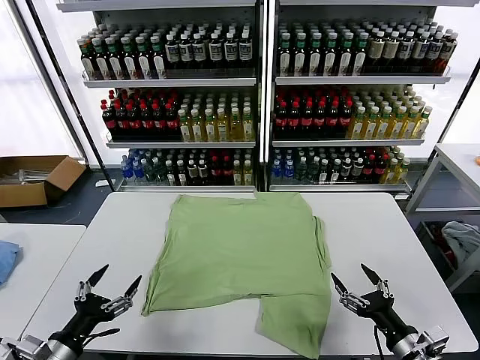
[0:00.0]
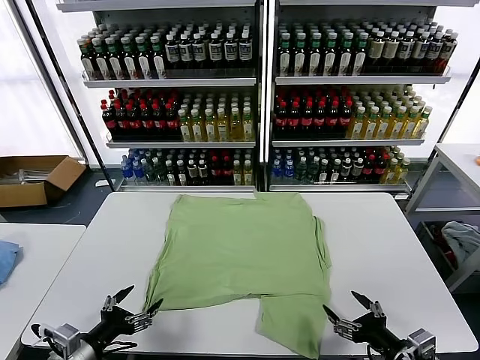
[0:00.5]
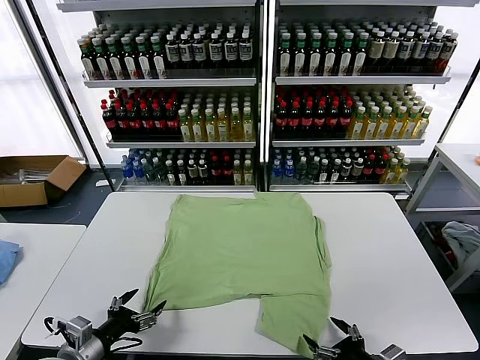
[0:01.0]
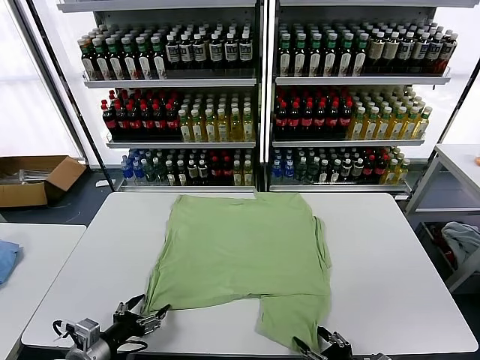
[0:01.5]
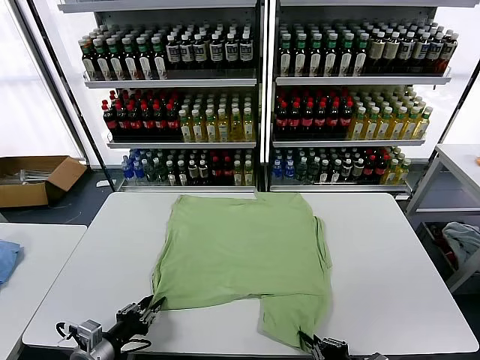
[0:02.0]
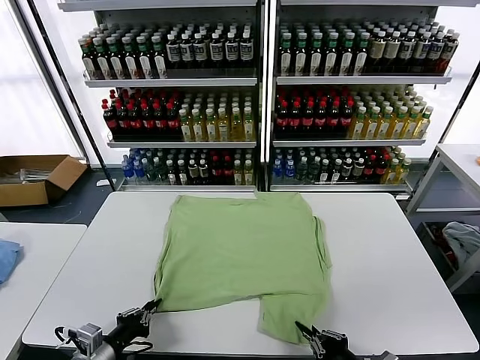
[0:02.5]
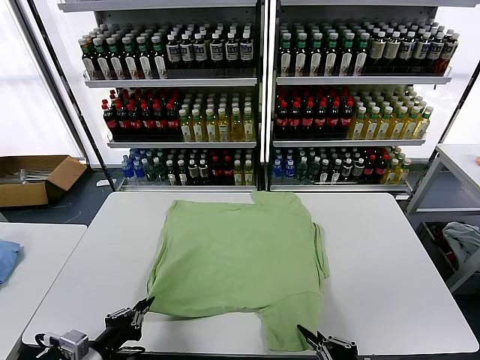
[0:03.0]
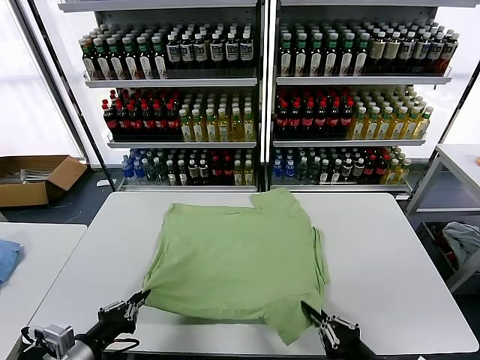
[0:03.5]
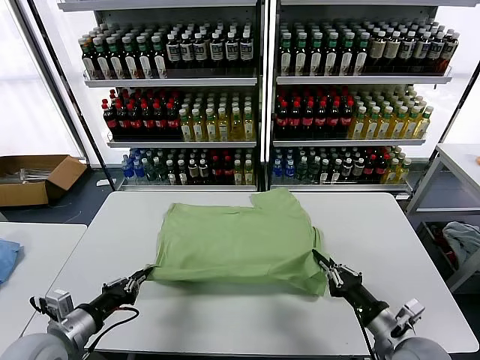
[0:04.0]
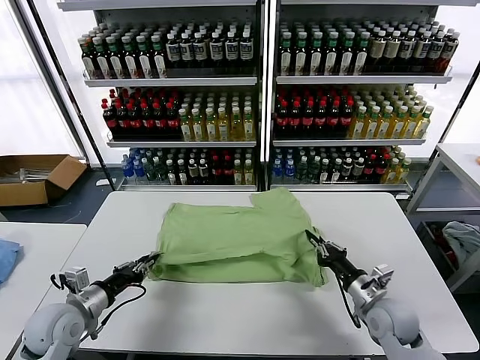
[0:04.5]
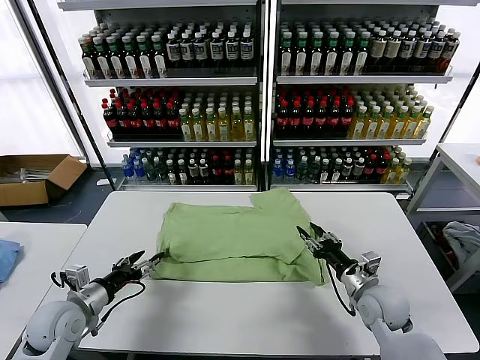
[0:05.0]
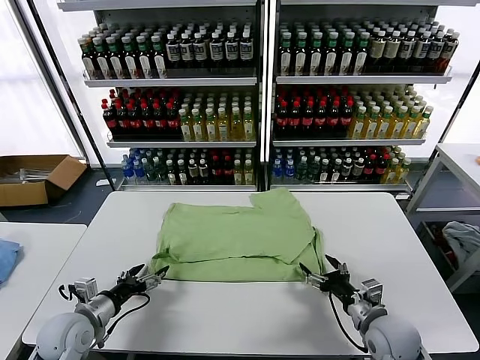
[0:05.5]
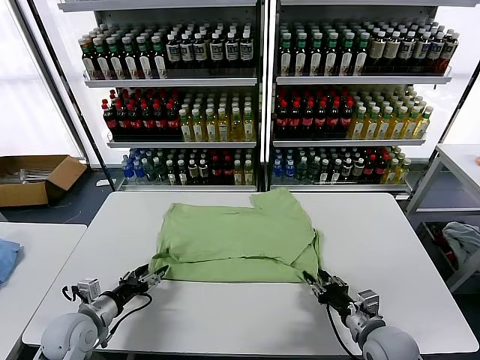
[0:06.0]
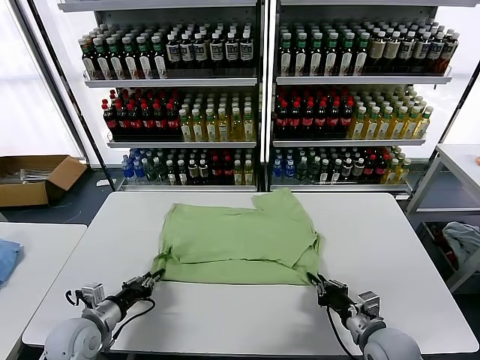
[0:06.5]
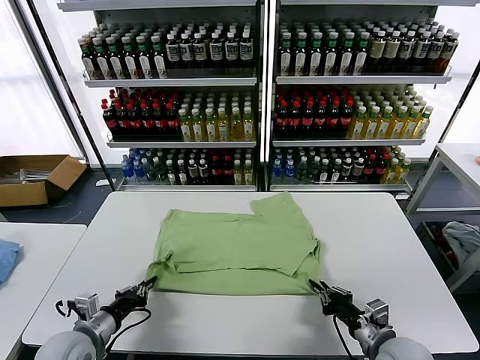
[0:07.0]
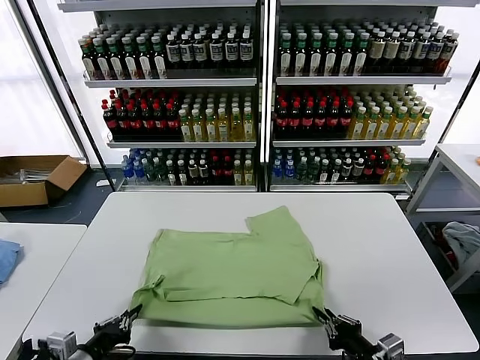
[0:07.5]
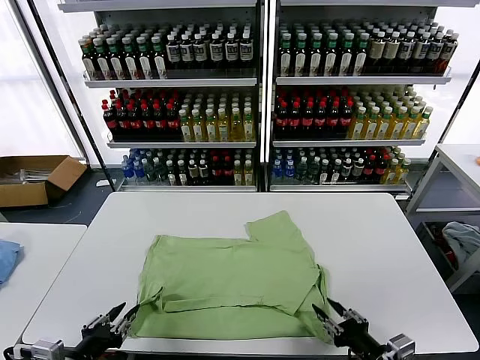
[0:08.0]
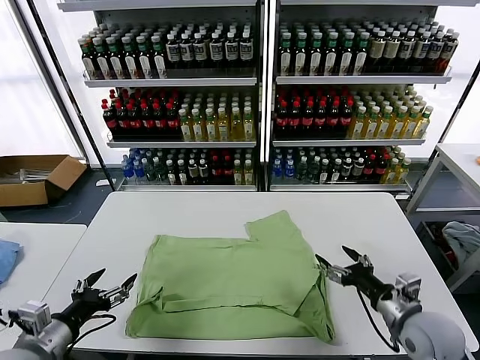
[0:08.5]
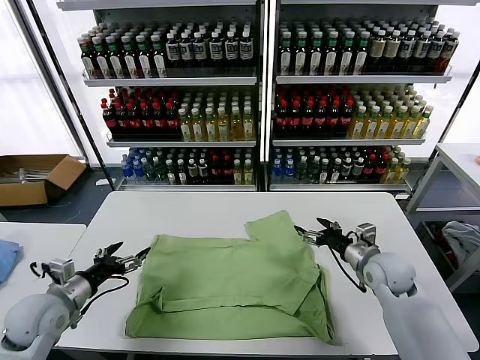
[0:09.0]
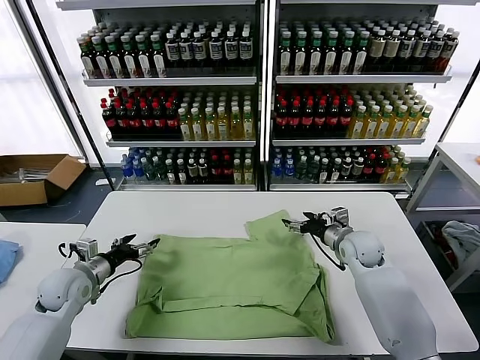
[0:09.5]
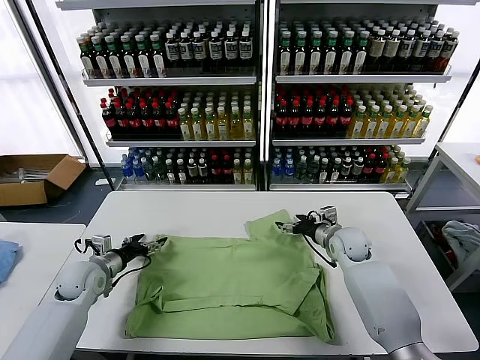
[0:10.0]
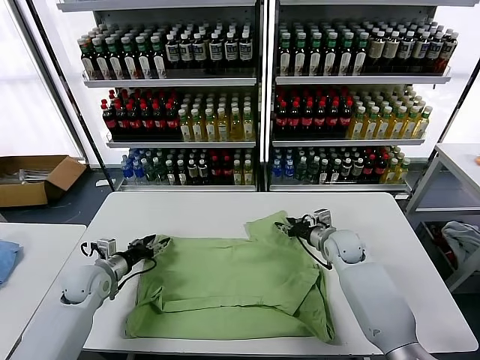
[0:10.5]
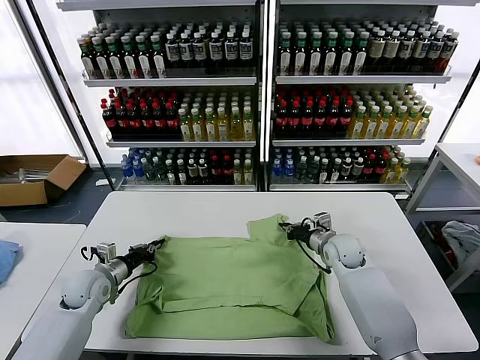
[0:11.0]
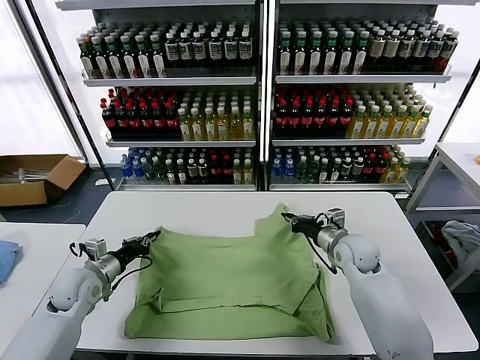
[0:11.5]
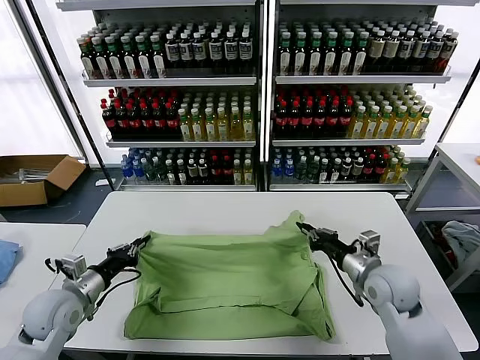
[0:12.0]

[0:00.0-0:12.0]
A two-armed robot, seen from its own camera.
Task of the whole recording: fold and organize the clothes.
Step, 0:00.0 to 0:02.0: use both grippers simultaneously to clamp the lower edge of the clothing fabric.
Step, 0:02.5 to 0:05.0: use both grippers to drag the lower edge of the fabric forward and fold it over the upper edge.
Step, 0:05.5 to 0:08.0: Drag the clothes downward with both gripper.
Step, 0:08.5 to 0:11.0: use both grippers simultaneously to clamp the upper edge of the clothing fabric.
0:02.0 to 0:04.0: The left gripper travels upward by approximately 5 cm, while the right gripper moves forward, about 10 cm.
0:04.0 to 0:06.0: The left gripper shifts about 10 cm downward and forward, and opens its fingers, while the right gripper moves about 10 cm forward and comes back, and opens.
0:06.0 to 0:08.0: The left gripper moves backward and upward, some 20 cm, and closes up. Meanwhile the right gripper goes roughly 10 cm backward and upward.
0:08.0 to 0:10.0: The grippers both shift forward by approximately 30 cm. The left gripper opens up; the right gripper opens up.
0:10.0 to 0:12.0: The left gripper heads backward and upward, covering approximately 10 cm, and closes up. Meanwhile the right gripper moves backward, some 15 cm, and closes its fingers.

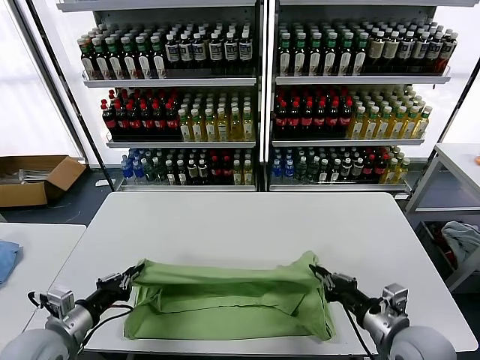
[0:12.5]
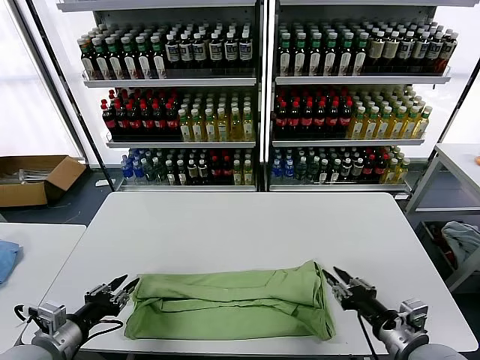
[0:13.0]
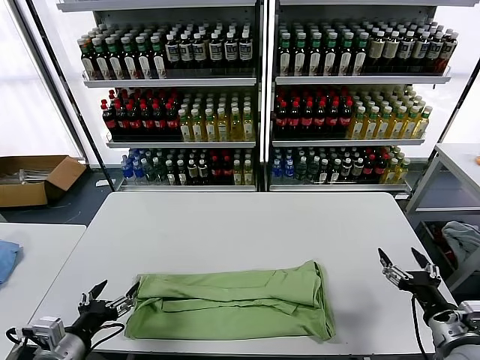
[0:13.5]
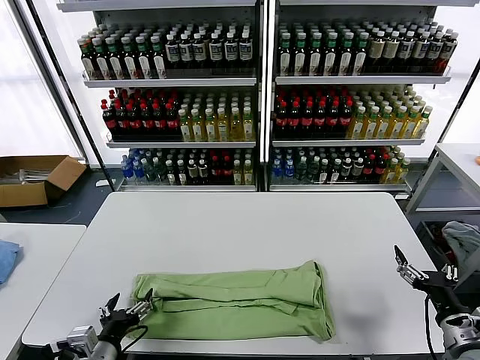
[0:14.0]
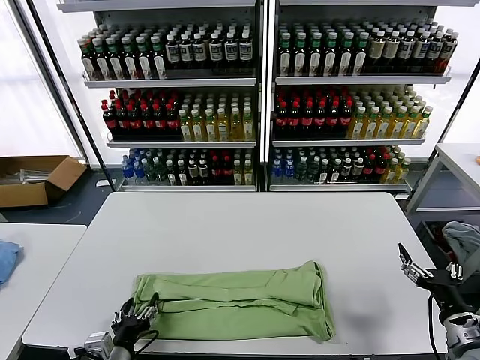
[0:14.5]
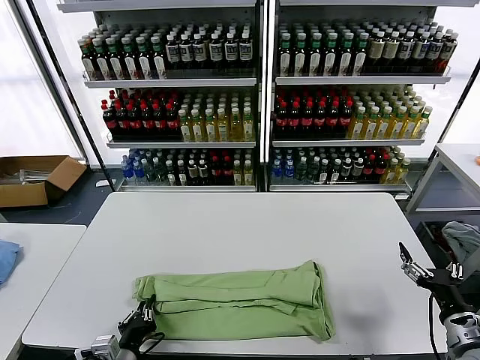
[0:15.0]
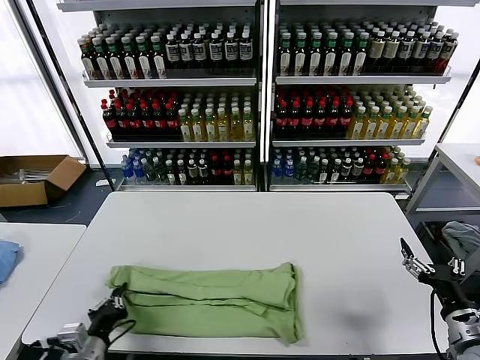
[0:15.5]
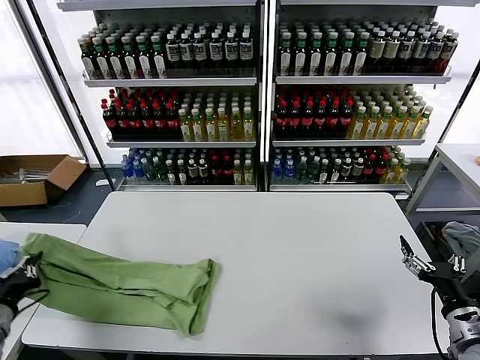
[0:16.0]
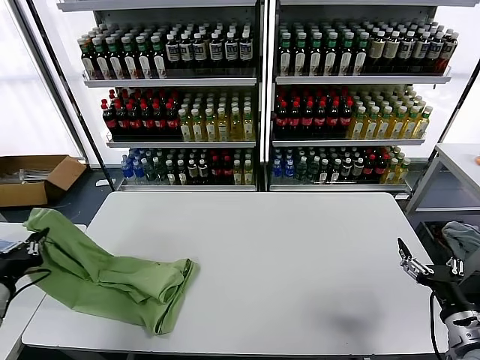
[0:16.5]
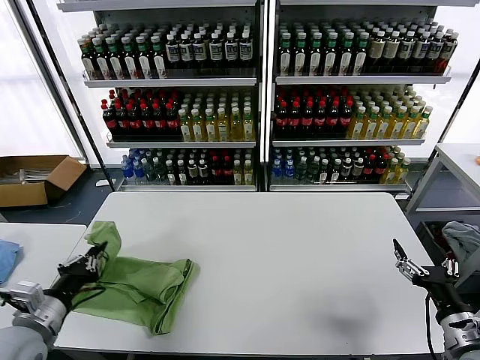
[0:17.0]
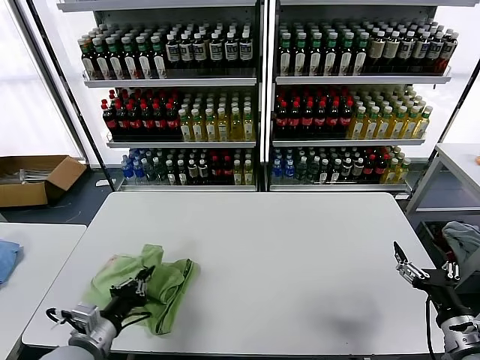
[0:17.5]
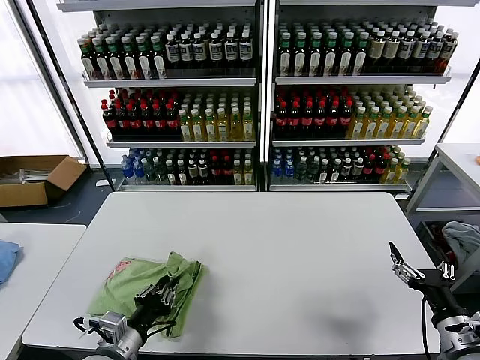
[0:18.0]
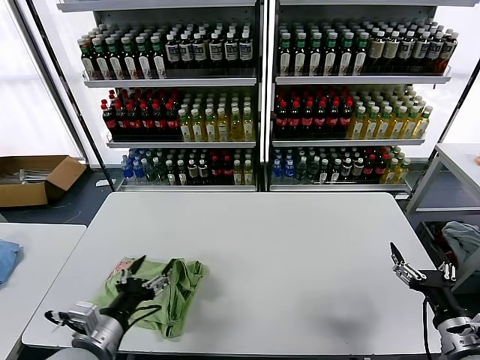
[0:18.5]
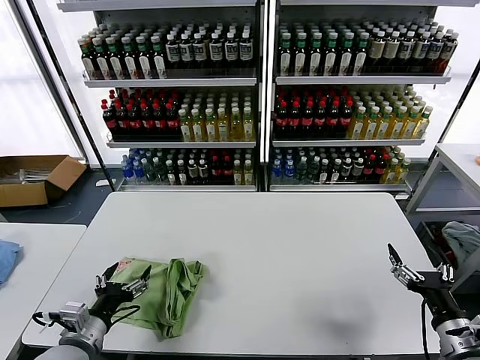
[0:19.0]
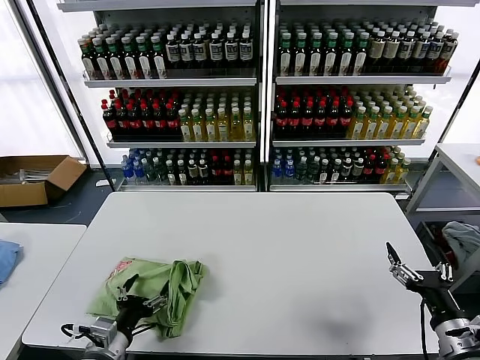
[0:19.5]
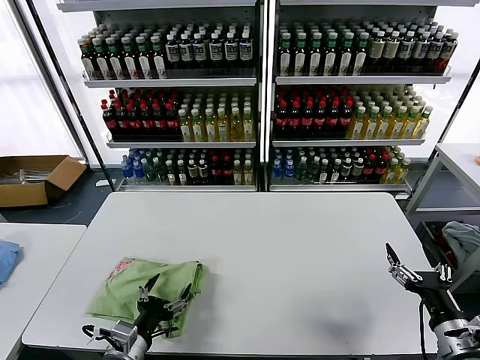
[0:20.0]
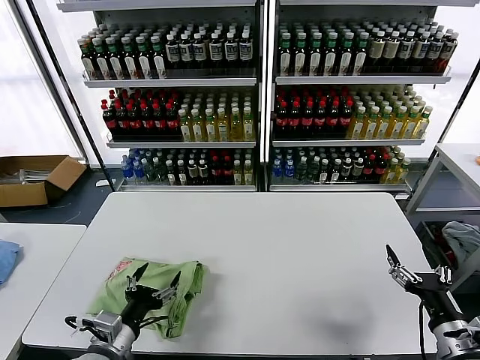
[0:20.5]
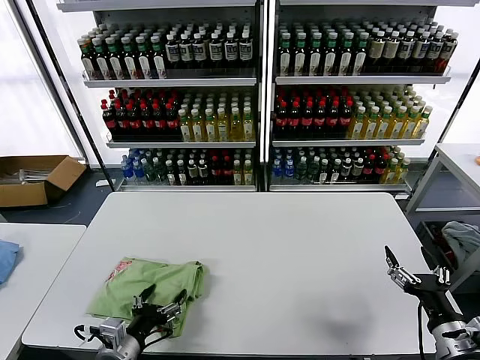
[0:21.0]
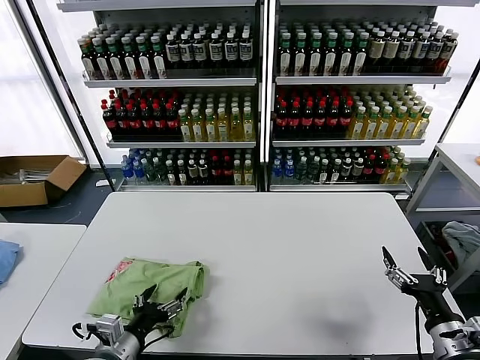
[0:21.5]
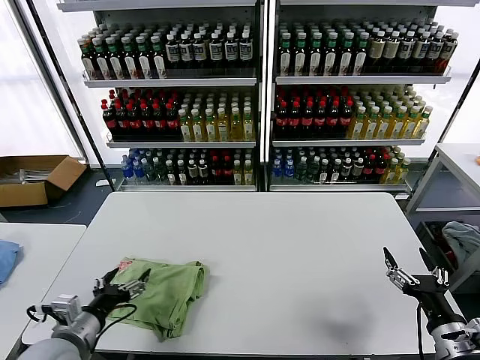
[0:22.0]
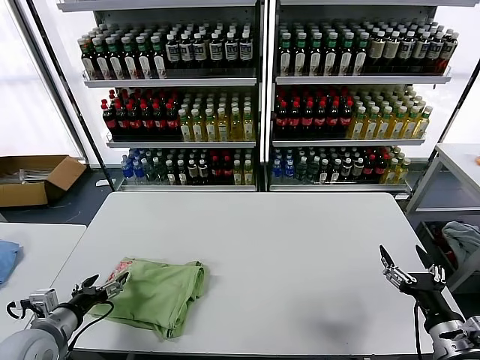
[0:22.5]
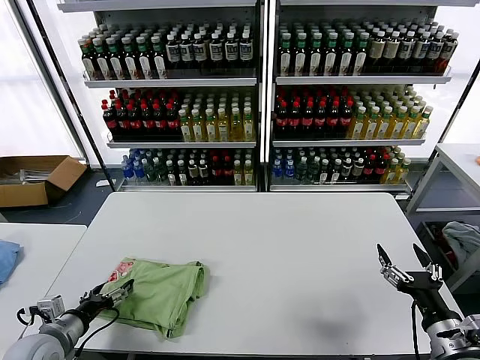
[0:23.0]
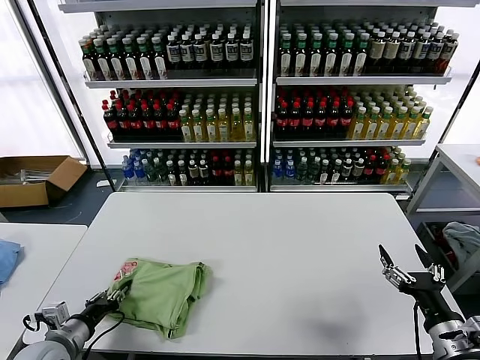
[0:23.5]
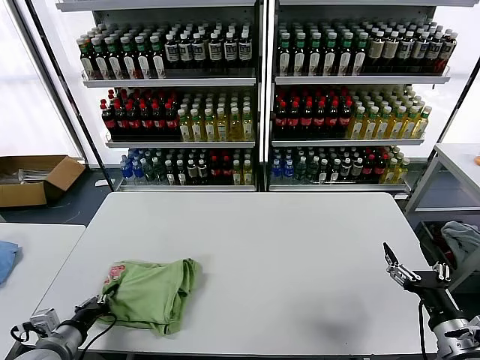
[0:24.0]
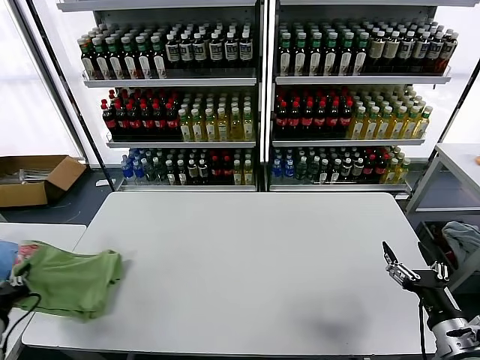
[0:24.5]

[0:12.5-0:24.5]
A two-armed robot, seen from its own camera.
Task of the whole recording: fold and organize the clothes.
Step, 0:13.5 to 0:15.0: use the left gripper to clamp the left edge of the fabric.
Step, 0:15.5 to 0:18.0: use the left gripper to drag the left edge of the fabric to the left and folds it over the right edge.
0:12.5 to 0:14.5: The left gripper moves to the right, downward and backward, some 15 cm, and opens its fingers. The right gripper shifts about 10 cm to the right, and opens.
0:14.5 to 0:16.5: The left gripper moves to the left and upward, some 25 cm, and closes.
0:16.5 to 0:18.5: The left gripper goes roughly 20 cm to the right, and opens.
0:20.5 to 0:22.5: The left gripper goes roughly 15 cm to the left.
0:22.5 to 0:24.5: The left gripper shifts roughly 5 cm to the left, and closes up.

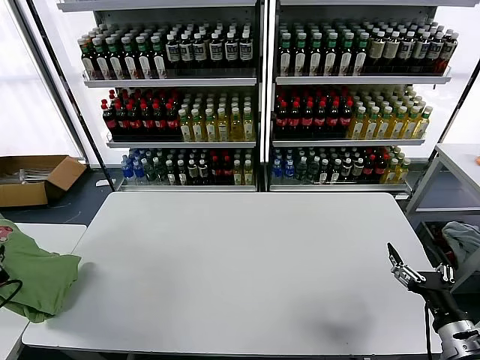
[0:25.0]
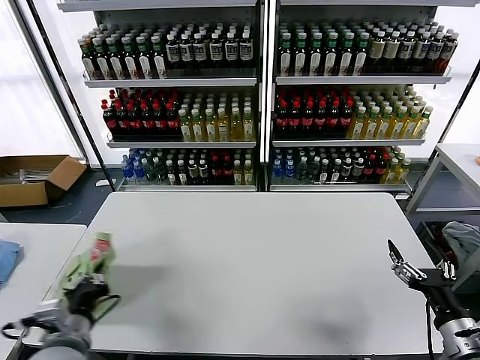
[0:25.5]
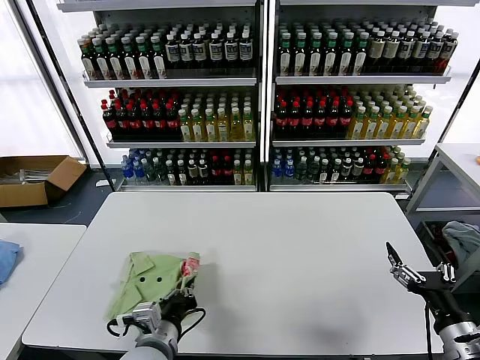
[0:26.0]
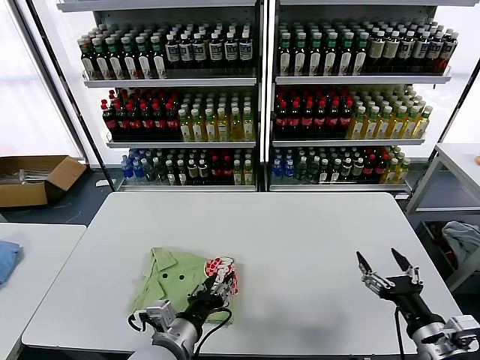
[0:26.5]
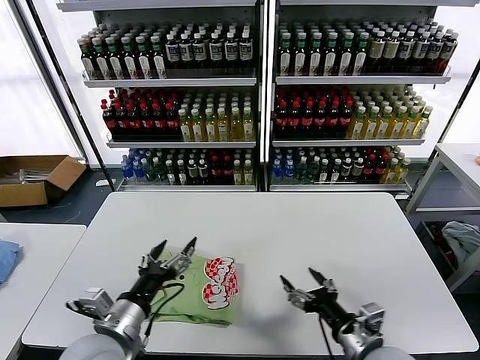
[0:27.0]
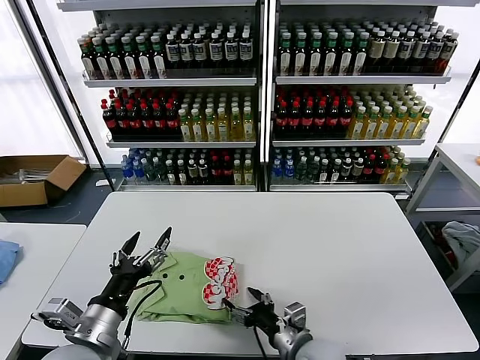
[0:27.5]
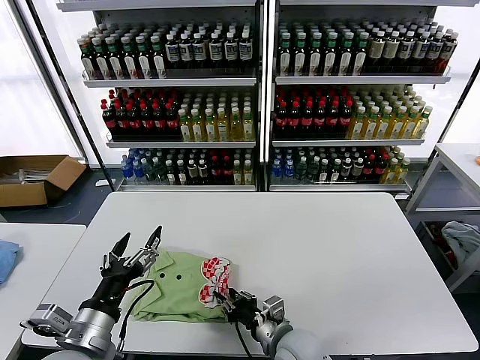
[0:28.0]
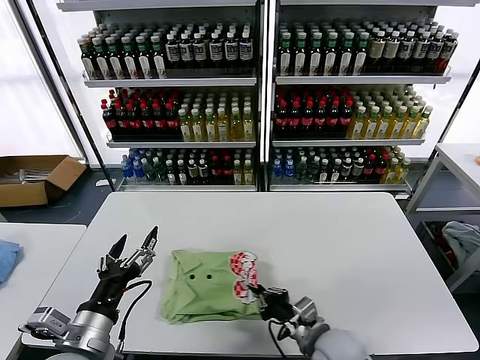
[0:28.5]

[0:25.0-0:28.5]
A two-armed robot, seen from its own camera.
Task of the whole recording: fold and organize the clothes.
0:25.0 to 0:27.0: The right gripper shifts roughly 15 cm to the left. Meanwhile the left gripper goes approximately 25 cm to the right, and opens.
0:27.0 to 0:28.5: The left gripper ends up about 5 cm from where it was; the right gripper travels to the left and forward by some 10 cm, and closes.
